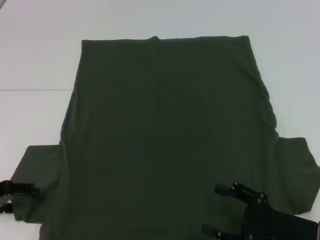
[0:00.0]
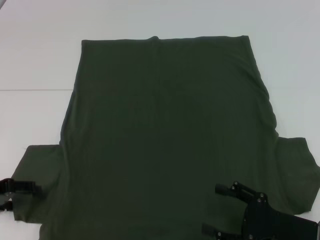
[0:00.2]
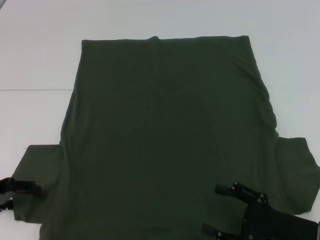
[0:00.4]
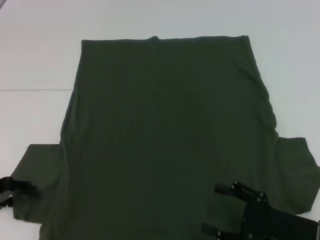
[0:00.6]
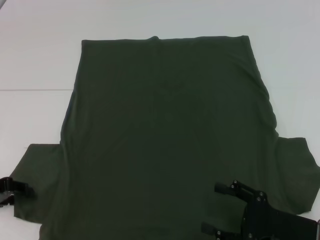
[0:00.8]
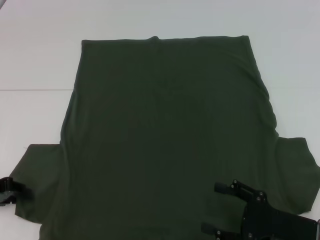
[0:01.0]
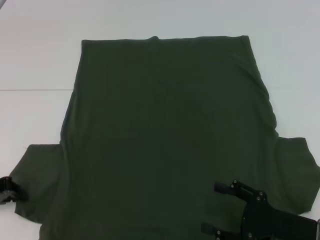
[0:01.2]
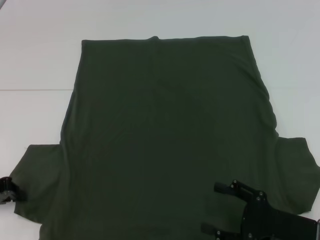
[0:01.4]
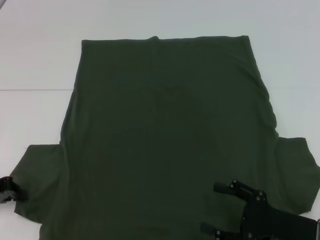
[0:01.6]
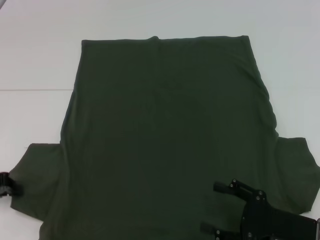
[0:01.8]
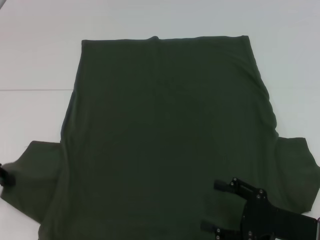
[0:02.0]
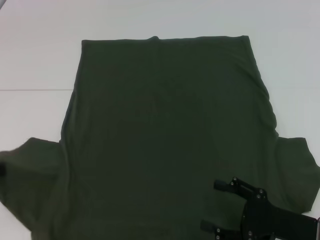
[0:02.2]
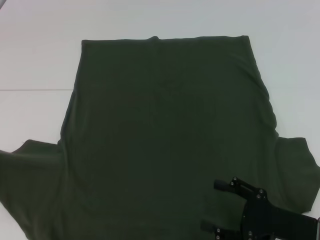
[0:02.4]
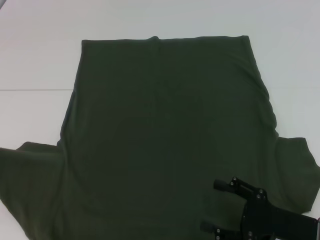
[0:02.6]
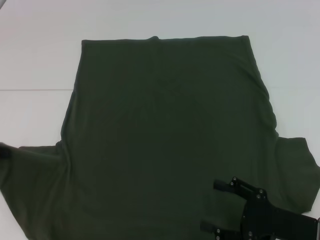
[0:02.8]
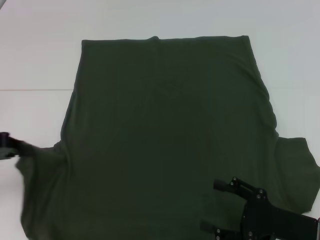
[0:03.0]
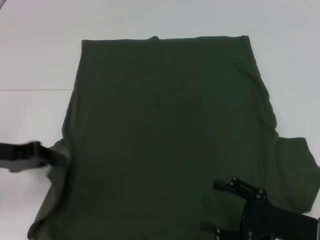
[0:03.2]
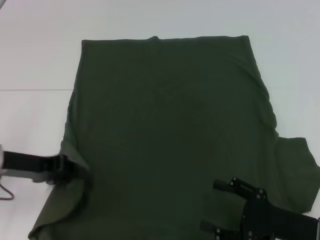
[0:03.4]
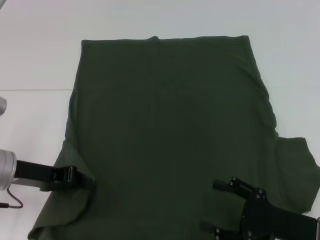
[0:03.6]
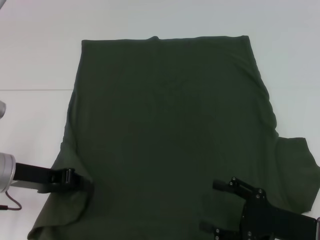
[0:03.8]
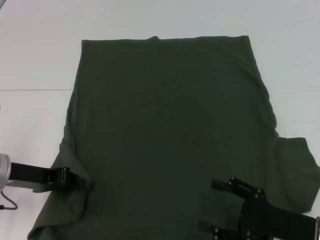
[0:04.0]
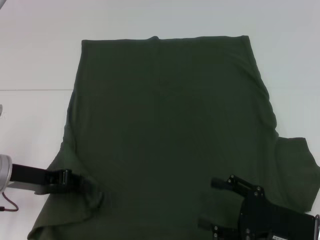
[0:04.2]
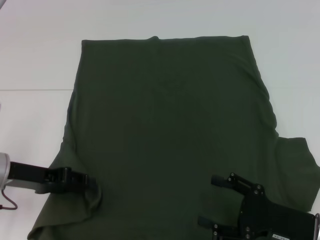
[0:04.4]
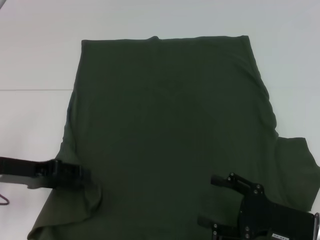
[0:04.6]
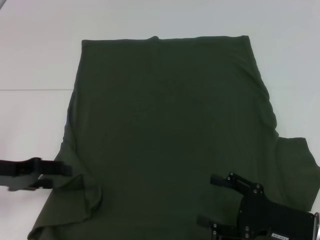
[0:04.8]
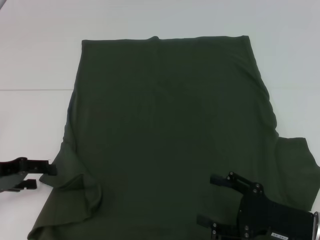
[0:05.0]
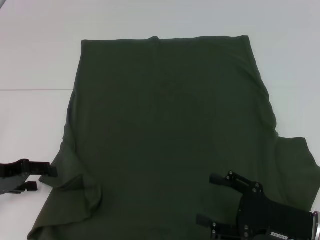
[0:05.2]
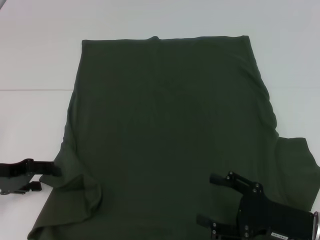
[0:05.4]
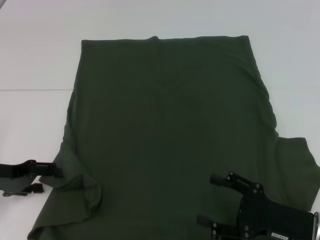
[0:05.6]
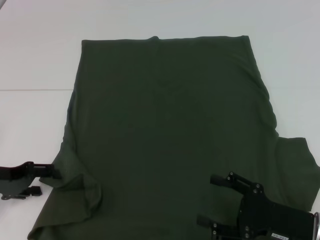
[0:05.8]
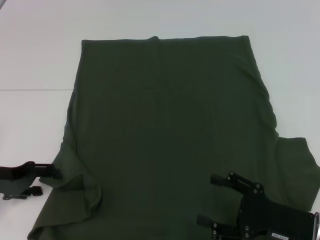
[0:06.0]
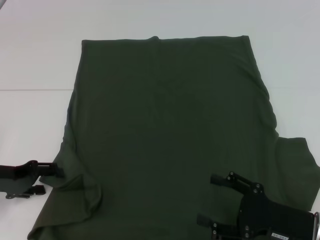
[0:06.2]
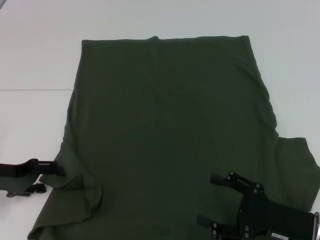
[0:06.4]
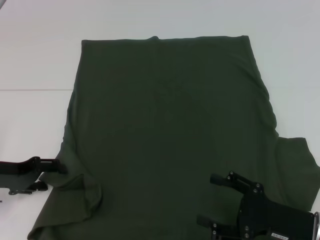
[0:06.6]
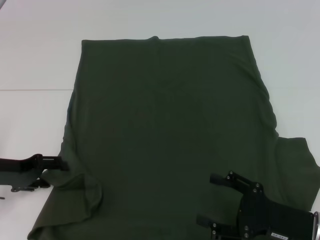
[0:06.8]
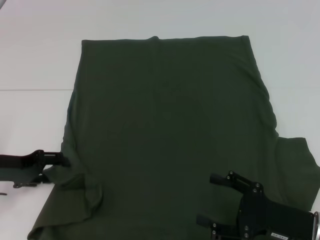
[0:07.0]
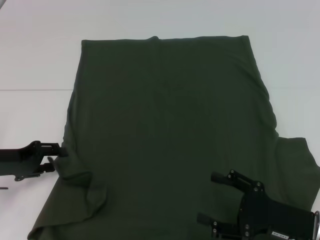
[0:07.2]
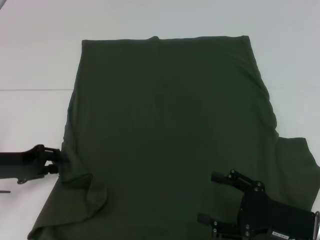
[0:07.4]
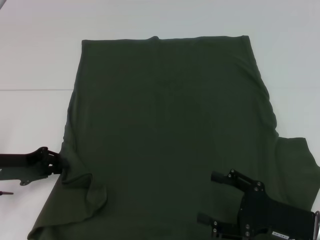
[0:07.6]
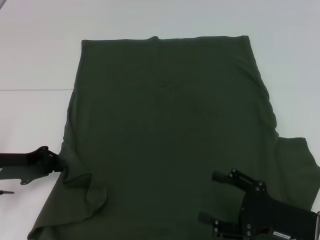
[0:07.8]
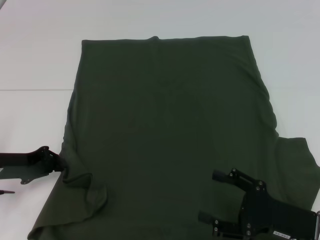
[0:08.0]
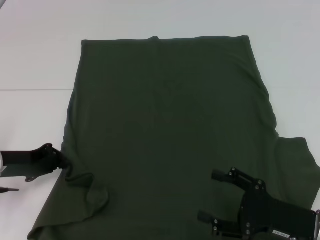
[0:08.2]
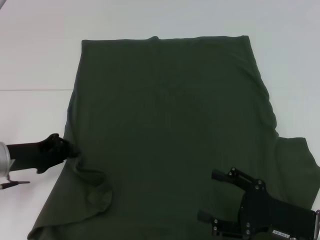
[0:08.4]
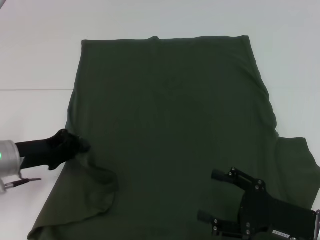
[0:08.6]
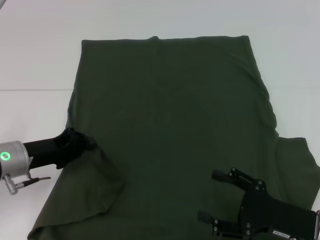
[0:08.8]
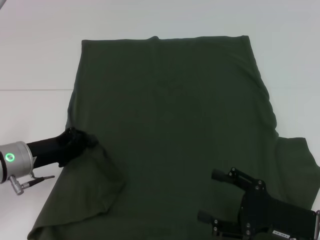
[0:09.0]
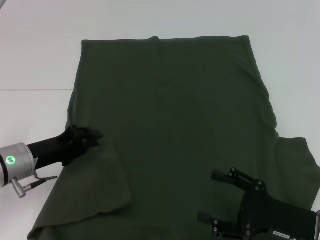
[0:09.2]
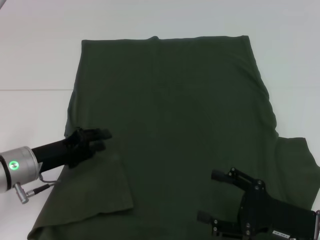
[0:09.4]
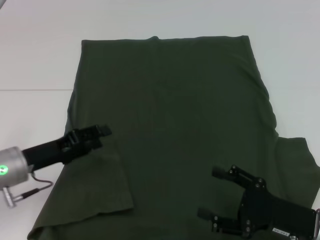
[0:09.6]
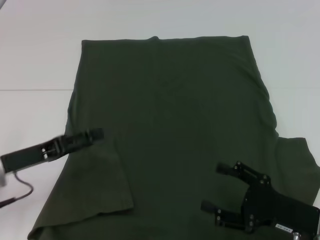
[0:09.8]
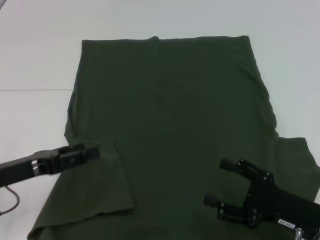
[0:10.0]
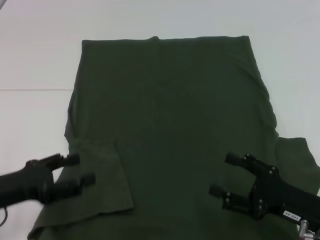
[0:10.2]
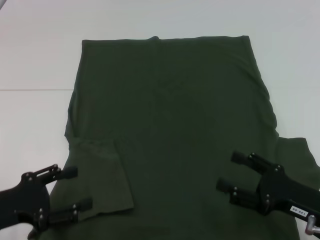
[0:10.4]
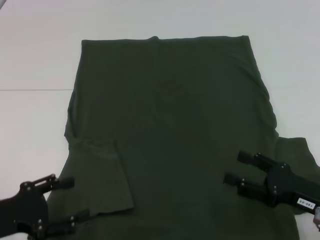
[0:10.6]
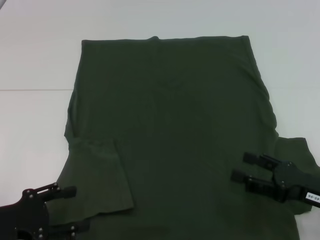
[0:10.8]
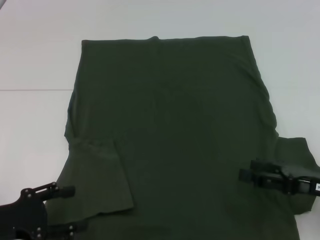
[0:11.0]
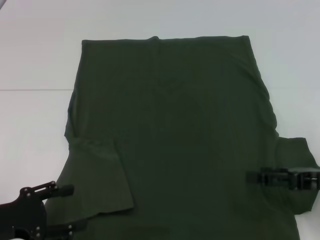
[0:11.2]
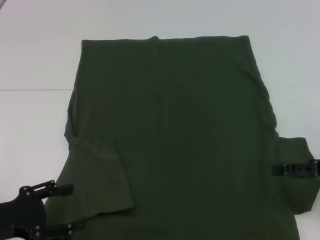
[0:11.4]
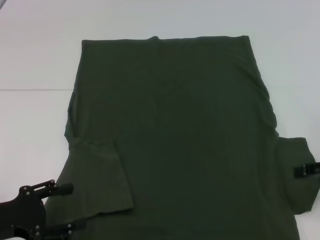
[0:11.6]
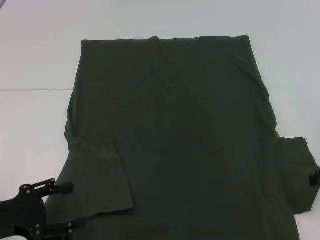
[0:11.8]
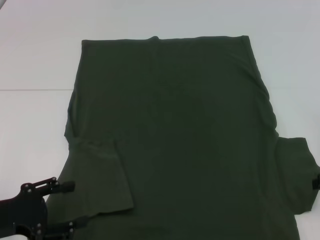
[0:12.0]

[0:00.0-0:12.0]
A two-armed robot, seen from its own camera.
Step, 0:00.0 to 0:09.4: Fold the bottom left sleeve with your left hand.
0:00.0 to 0:01.6: The left gripper closes its fingers.
0:01.6 to 0:03.0: The left gripper is displaced upward by approximately 5 cm.
0:03.0 to 0:04.4: The left gripper shifts some 10 cm to the right.
0:04.4 to 0:06.0: The left gripper moves to the left, roughly 5 cm, and opens up.
0:06.0 to 0:07.6: The left gripper closes its fingers.
0:07.6 to 0:09.0: The left gripper shifts by approximately 5 cm, and closes.
0:09.0 to 0:10.4: The left gripper is displaced backward by about 10 cm, and opens.
0:10.4 to 0:12.0: The right gripper heads upward, to the right and forward, covering some 15 cm.

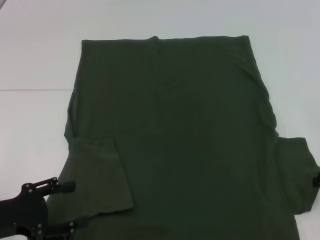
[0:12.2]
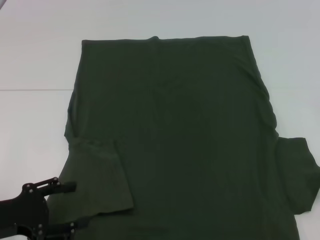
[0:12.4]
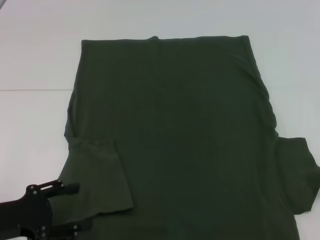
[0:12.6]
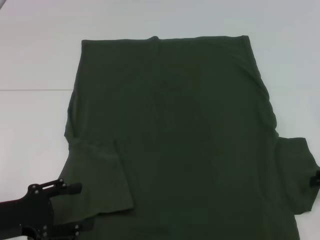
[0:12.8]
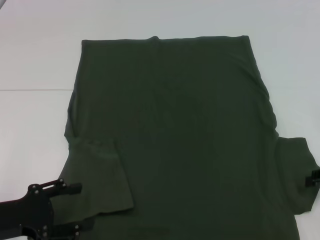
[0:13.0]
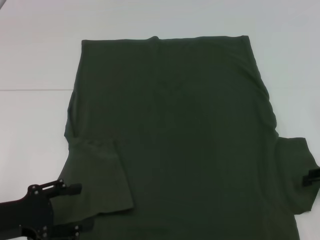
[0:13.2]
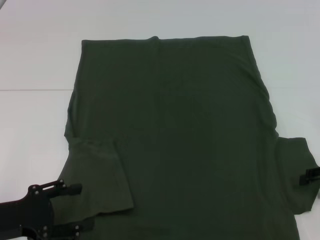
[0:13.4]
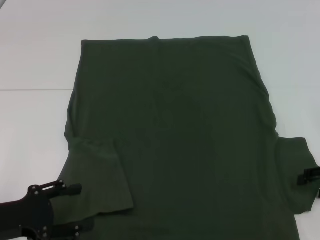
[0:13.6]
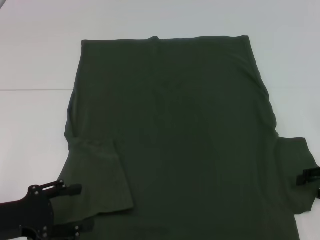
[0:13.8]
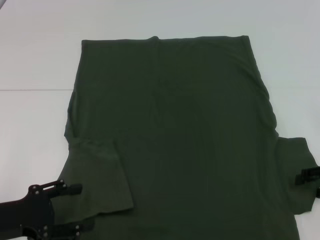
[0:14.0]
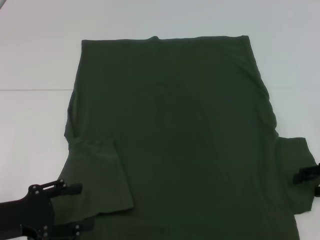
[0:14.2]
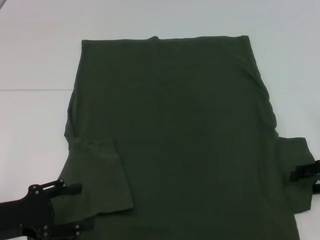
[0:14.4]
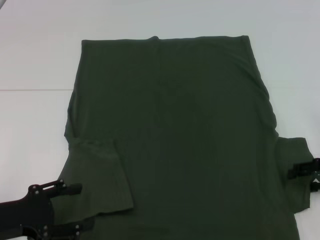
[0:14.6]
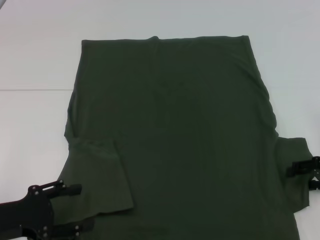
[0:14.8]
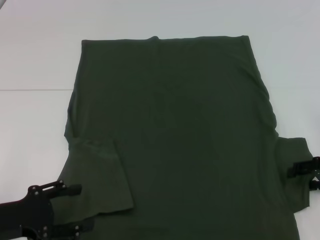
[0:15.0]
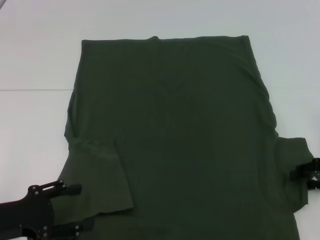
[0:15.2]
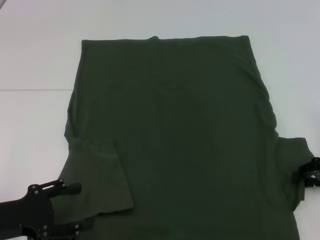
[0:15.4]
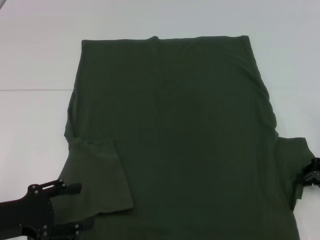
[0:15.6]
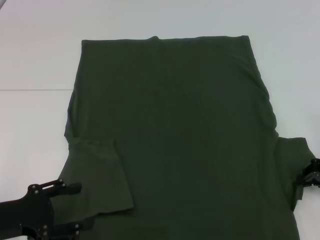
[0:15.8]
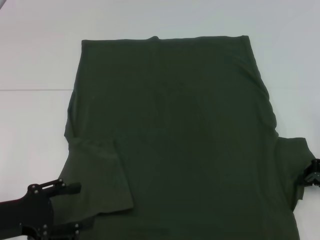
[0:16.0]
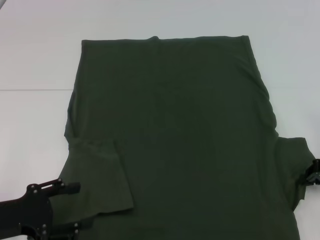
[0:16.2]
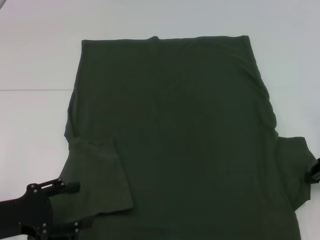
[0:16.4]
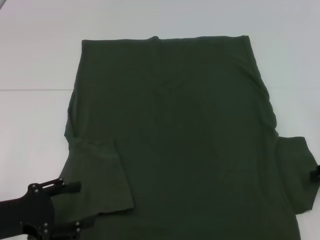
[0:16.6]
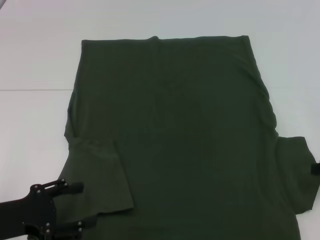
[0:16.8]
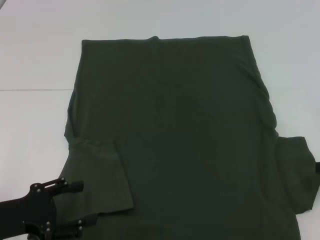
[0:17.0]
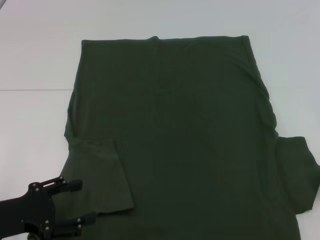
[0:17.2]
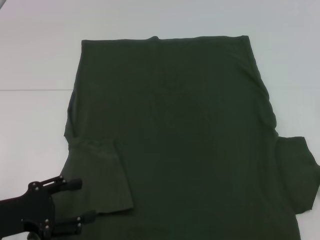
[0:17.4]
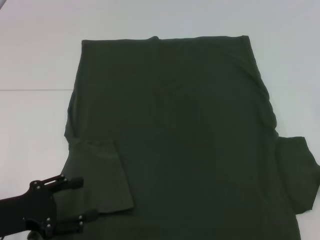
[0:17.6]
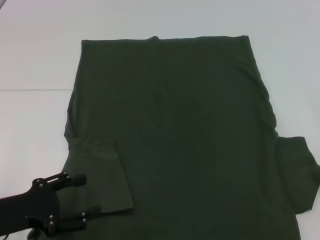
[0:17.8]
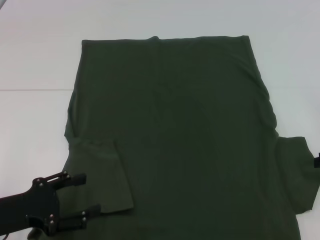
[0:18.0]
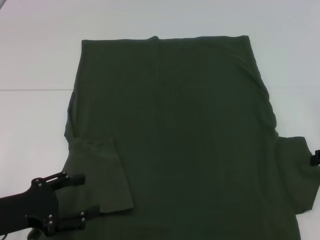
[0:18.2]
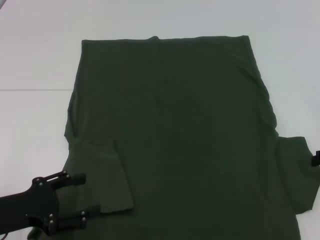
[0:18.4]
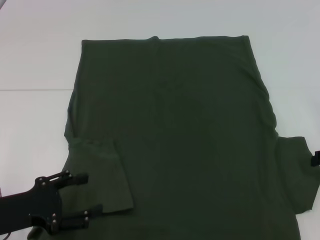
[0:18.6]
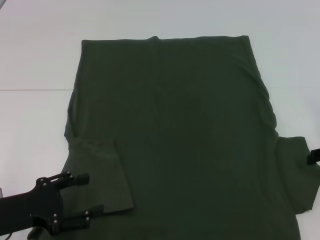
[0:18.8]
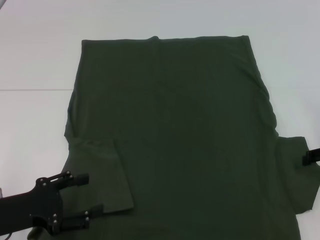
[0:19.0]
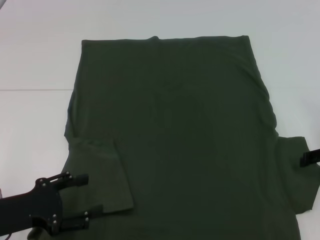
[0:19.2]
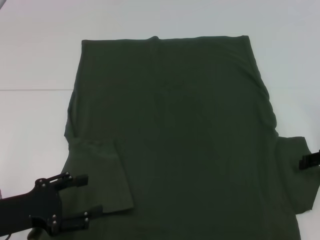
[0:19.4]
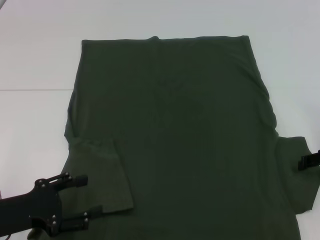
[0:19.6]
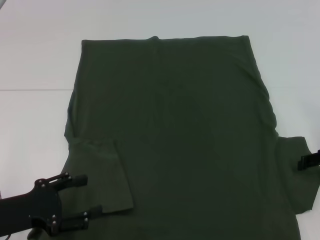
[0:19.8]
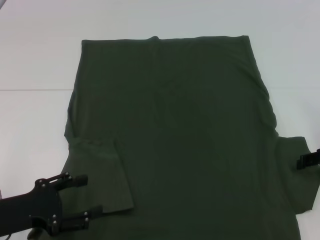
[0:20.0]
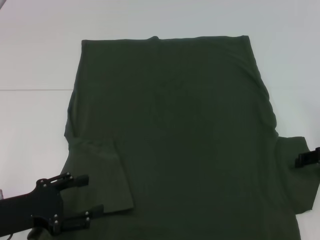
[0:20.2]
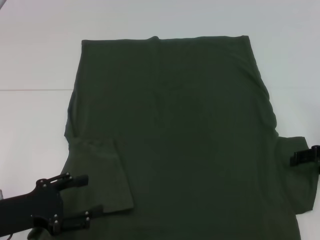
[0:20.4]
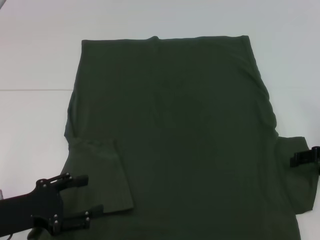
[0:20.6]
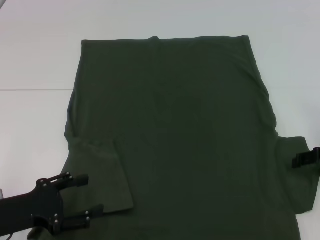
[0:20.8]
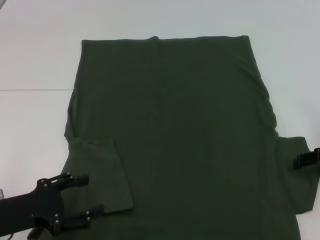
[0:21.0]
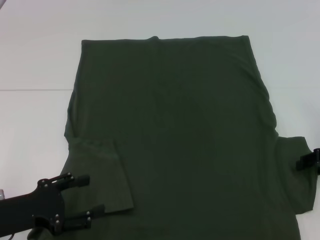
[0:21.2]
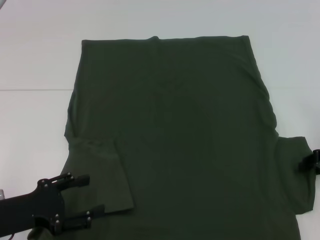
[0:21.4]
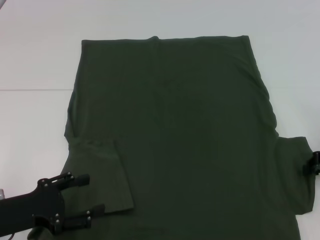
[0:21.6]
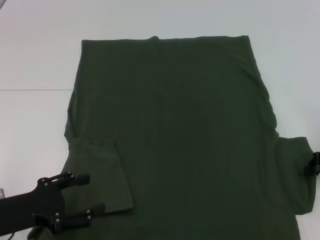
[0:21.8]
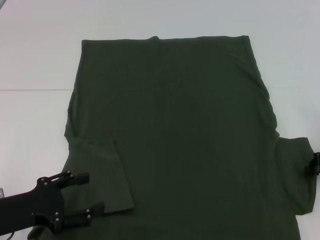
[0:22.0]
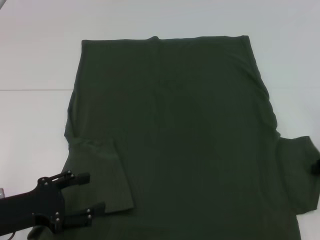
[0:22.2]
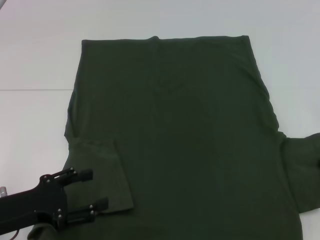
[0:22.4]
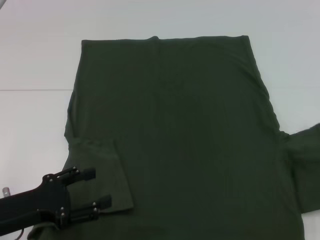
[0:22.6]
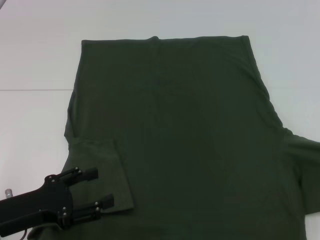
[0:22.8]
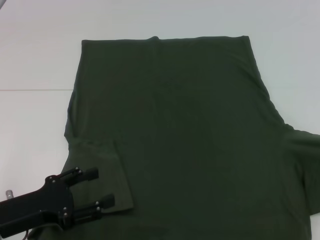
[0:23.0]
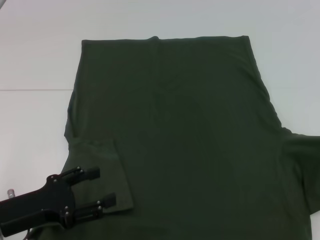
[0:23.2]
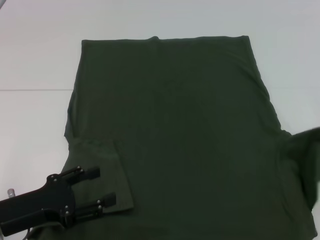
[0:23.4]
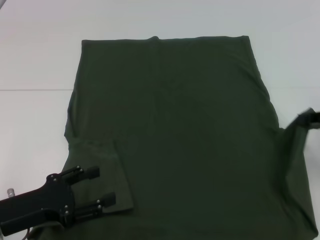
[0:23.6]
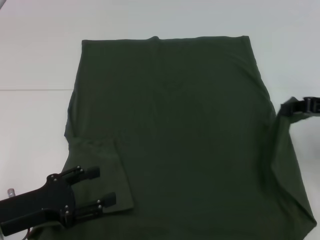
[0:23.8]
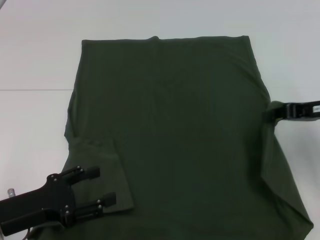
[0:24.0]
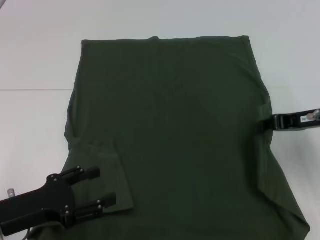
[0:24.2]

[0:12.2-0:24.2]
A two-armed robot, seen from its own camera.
0:12.2 to 0:13.8: There are only small adjustments of the grippers.
0:15.2 to 0:16.6: The right gripper closes its fingers.
0:18.2 to 0:19.8: The grippers stay close to where they were, moving slightly.
0:19.8 to 0:21.2: Both grippers stay put.
0:21.2 to 0:22.6: The right gripper is displaced backward and to the right by about 5 cm, and closes.
0:22.6 to 0:24.2: The right gripper shifts about 15 cm to the left and forward.
